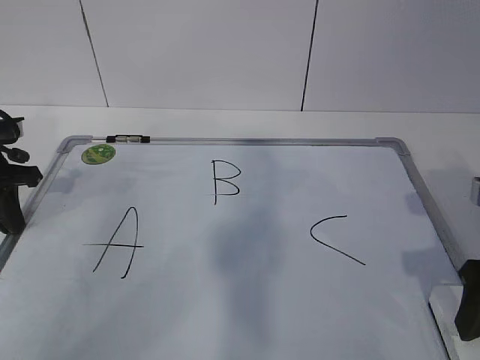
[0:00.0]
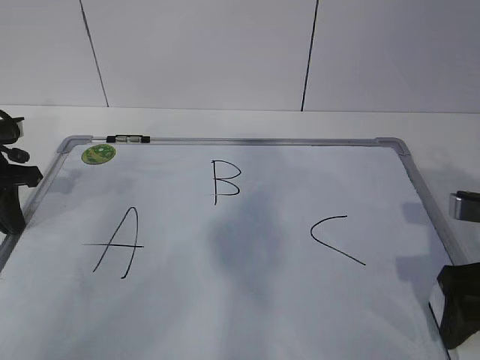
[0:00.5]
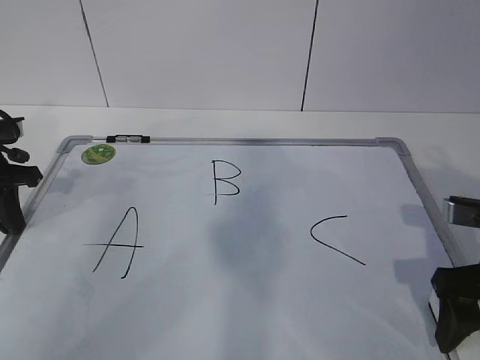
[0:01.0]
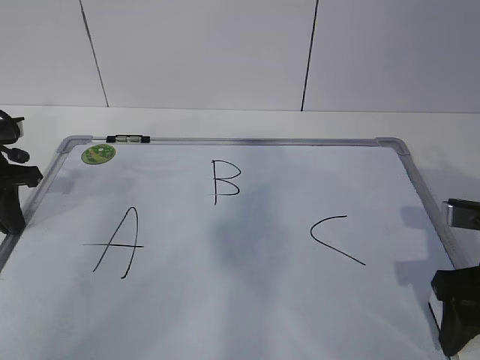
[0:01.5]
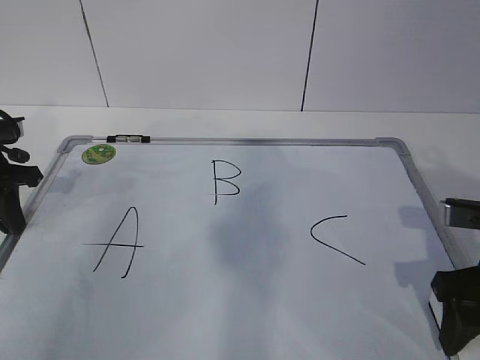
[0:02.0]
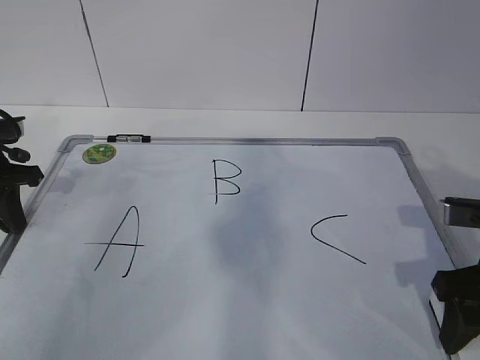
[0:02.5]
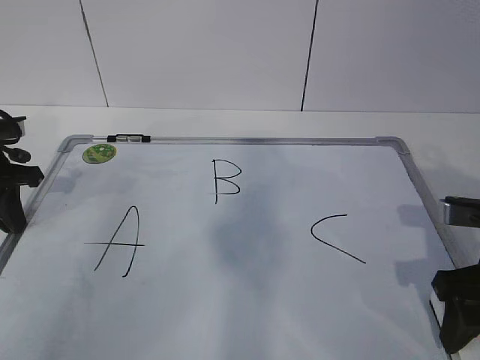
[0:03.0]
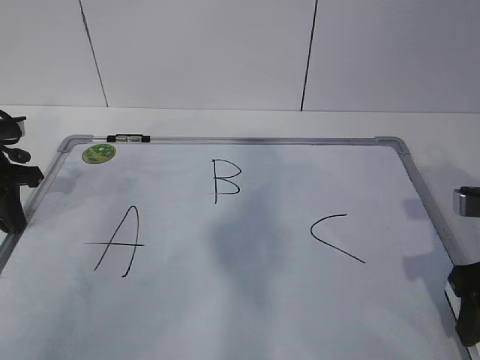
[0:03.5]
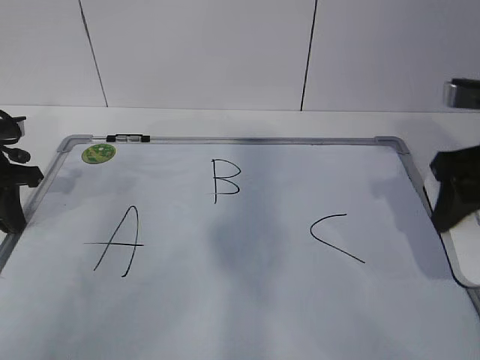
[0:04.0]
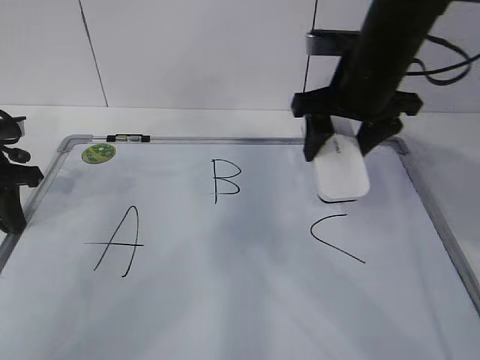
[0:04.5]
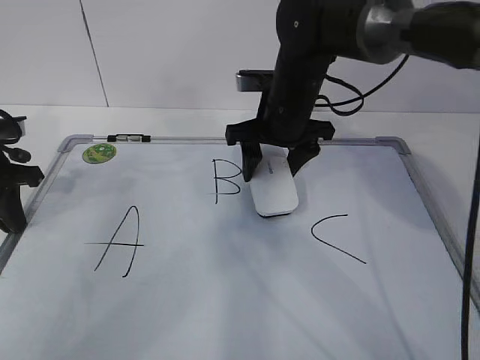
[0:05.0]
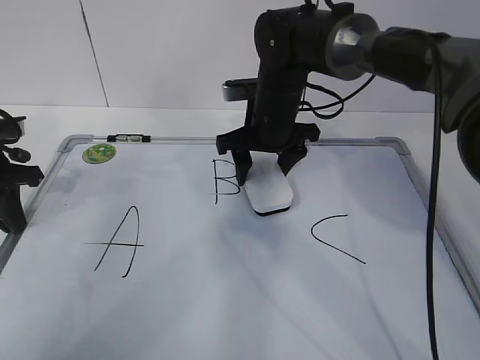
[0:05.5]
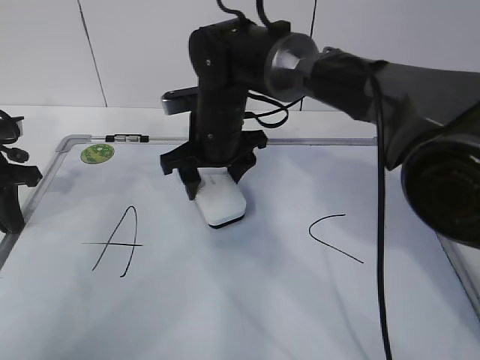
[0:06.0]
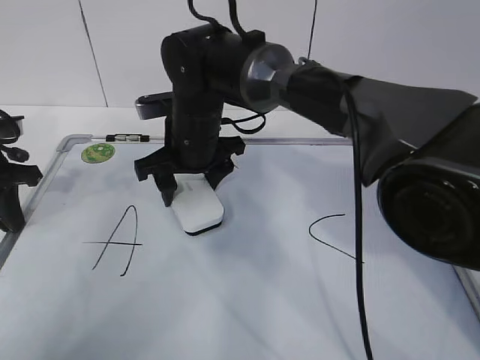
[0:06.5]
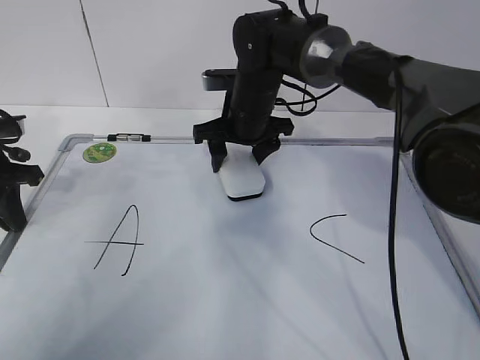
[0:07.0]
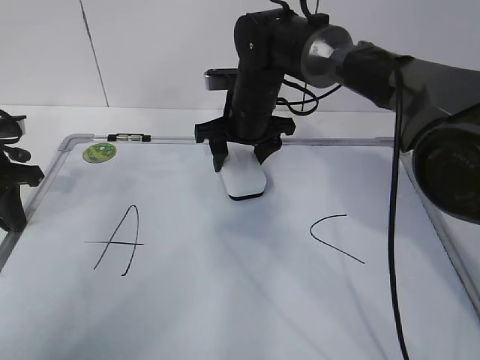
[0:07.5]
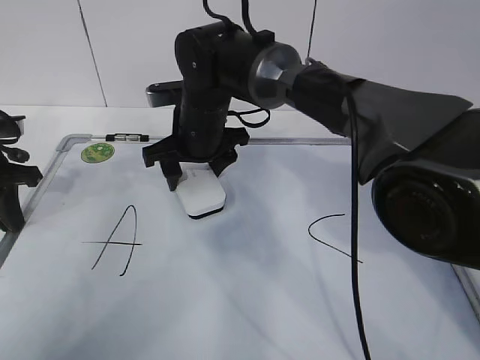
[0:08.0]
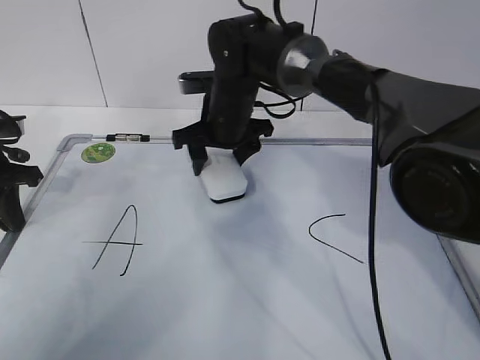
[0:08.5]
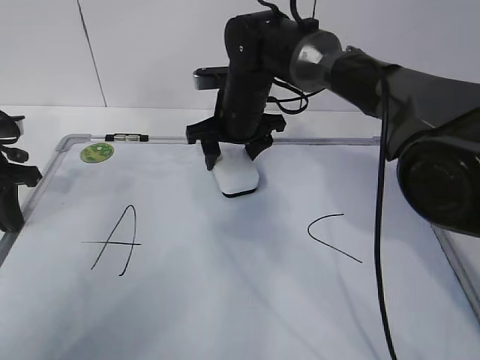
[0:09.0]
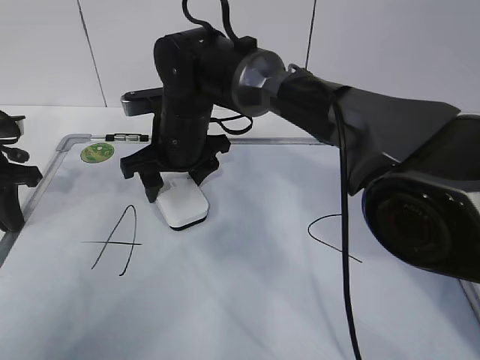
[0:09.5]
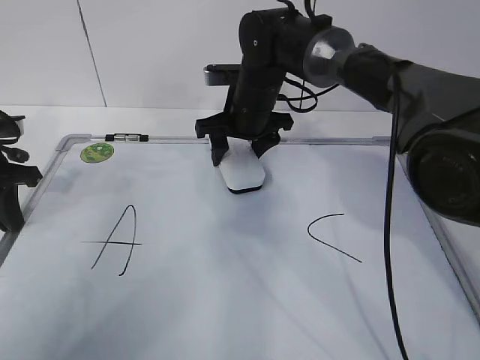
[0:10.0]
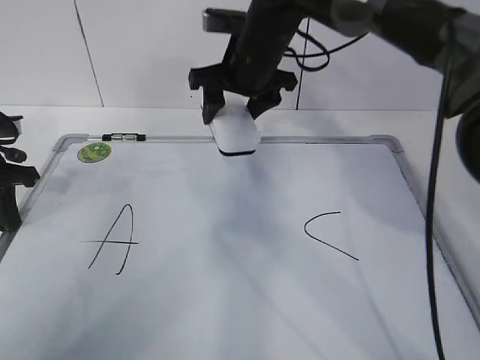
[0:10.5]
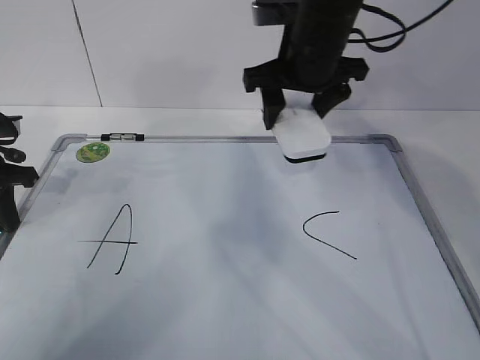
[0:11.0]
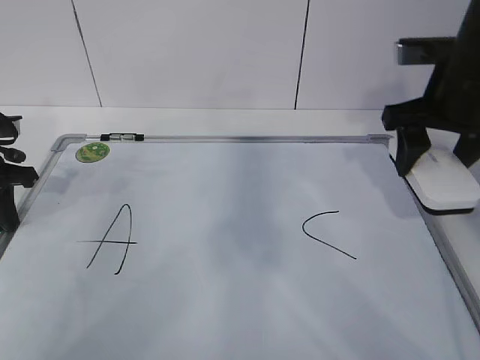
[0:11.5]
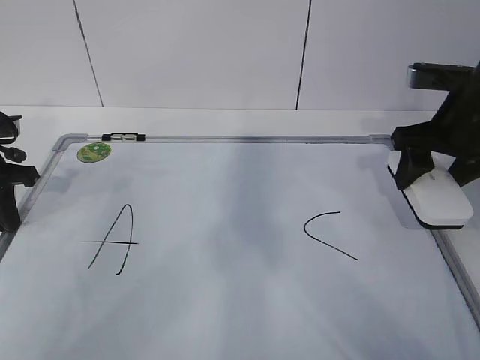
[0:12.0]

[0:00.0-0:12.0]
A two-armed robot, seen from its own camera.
Task of the whole recording: pick up the eraser on the blackboard and erase the letter "B".
Step, 0:00.5 to 0:06.5: Erase the letter B with your right hand.
Step, 0:07.5 to 0:09.5: Grab the eraser with your right hand.
0:00.0 to 0:02.0: The right gripper closes its fingers.
0:02.0 to 0:04.0: The right gripper moves upward, some 10 cm.
0:04.0 to 0:06.0: The right gripper shifts some 30 cm to the left and forward.
0:08.0 to 0:10.0: The right gripper goes left and right, about 10 cm each way, reversing 2 times.
0:10.0 to 0:12.0: The right gripper goes about 25 cm to the right and backward.

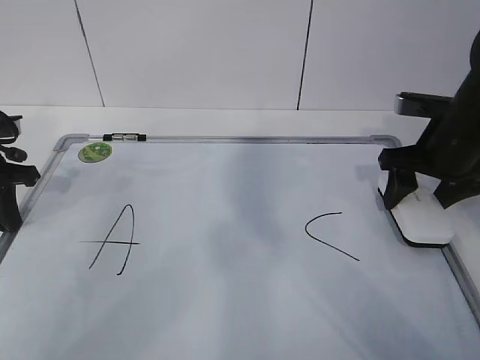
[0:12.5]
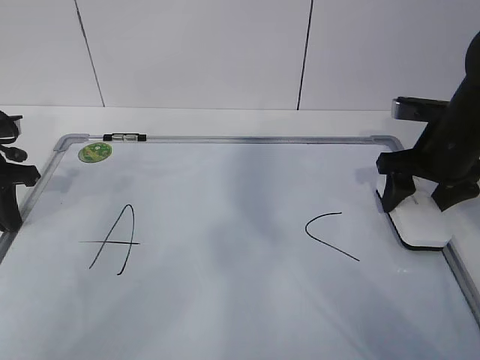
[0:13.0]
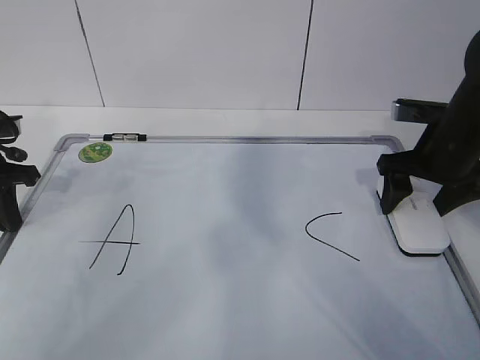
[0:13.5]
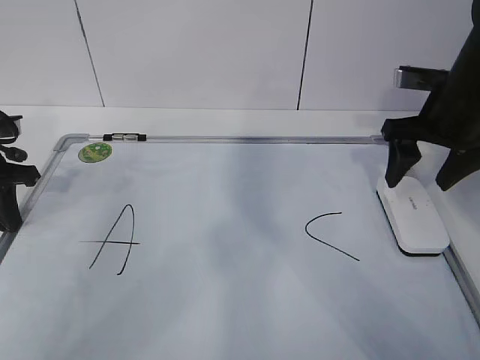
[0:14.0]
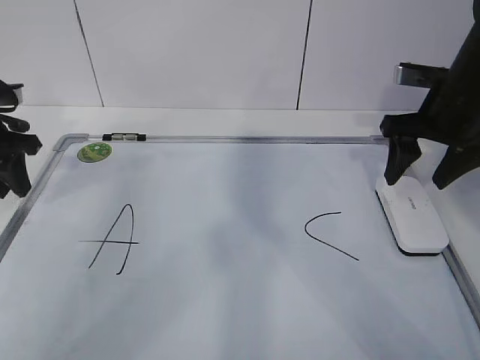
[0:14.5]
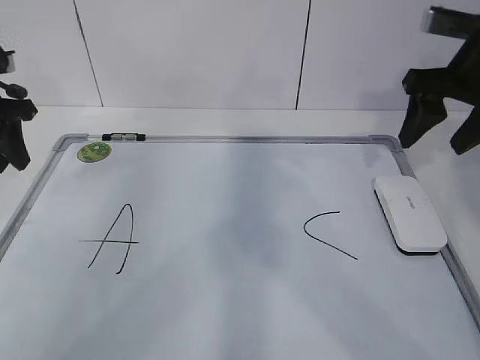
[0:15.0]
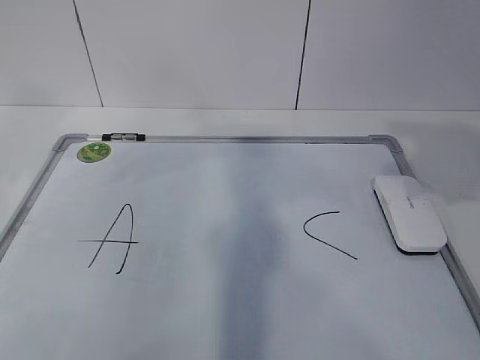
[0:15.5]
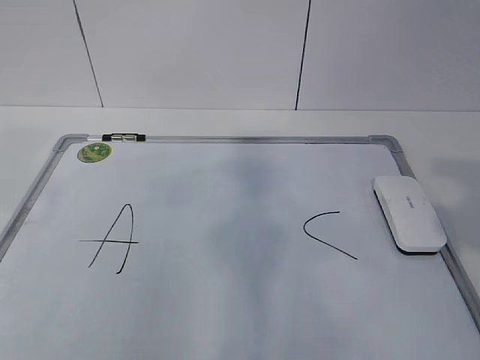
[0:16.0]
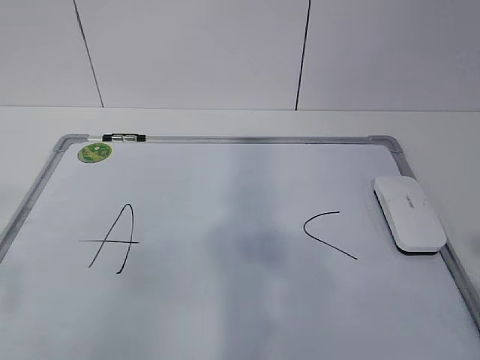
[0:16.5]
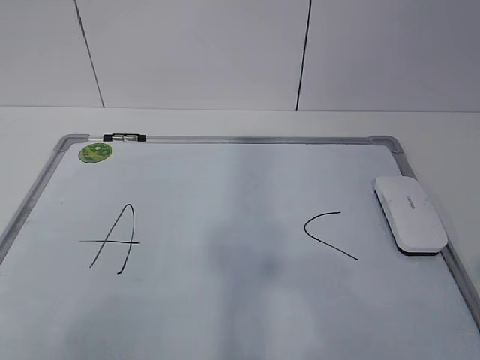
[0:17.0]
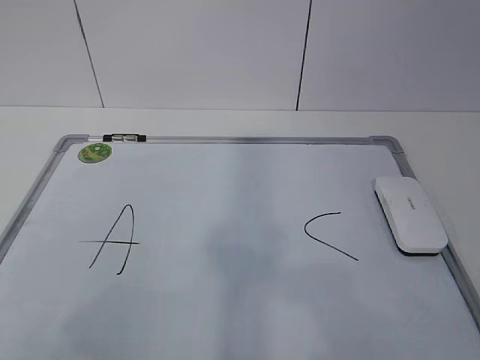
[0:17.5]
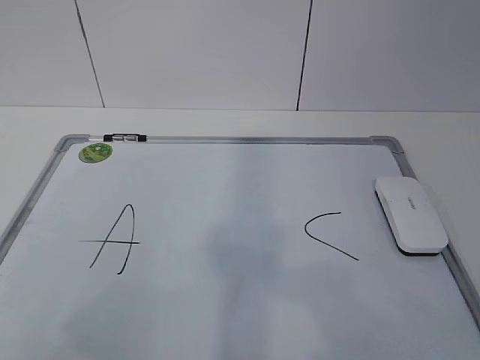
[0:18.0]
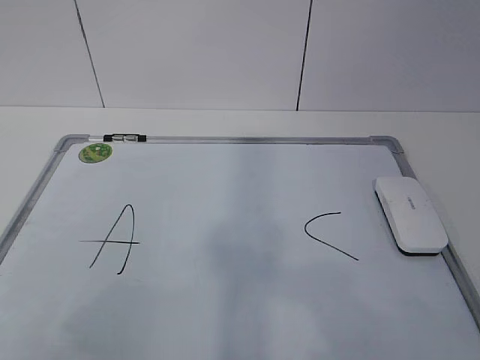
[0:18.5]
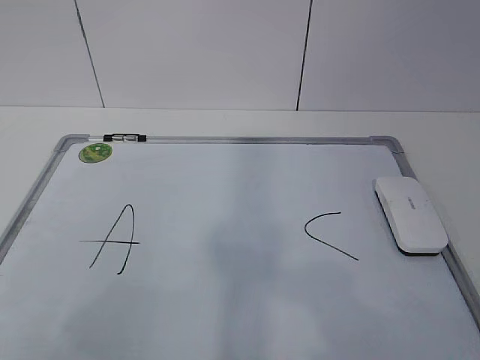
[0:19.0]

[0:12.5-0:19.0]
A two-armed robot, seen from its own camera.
Task of the whole recording: pick up the eraser on the blackboard and erase the letter "B".
0:12.5 to 0:14.5: The right gripper opens, then closes once more; the left gripper opens its fingers.
0:14.5 to 0:17.0: The grippers both shift backward by about 40 cm.

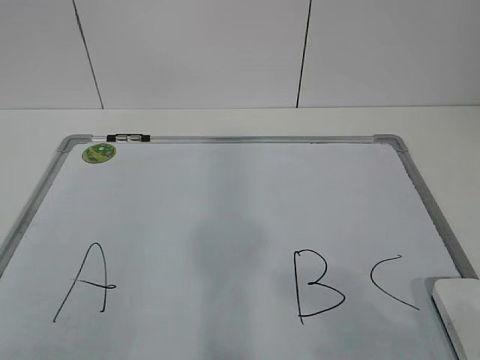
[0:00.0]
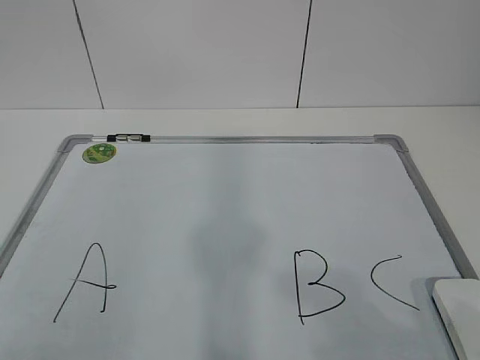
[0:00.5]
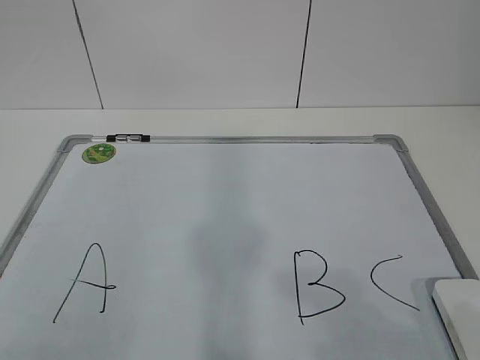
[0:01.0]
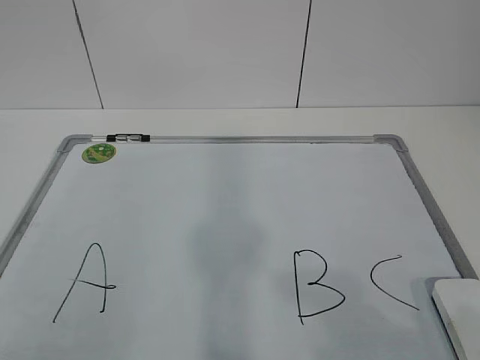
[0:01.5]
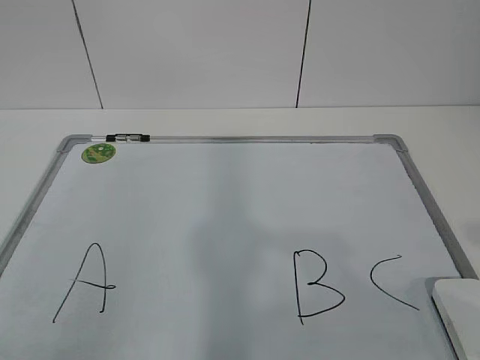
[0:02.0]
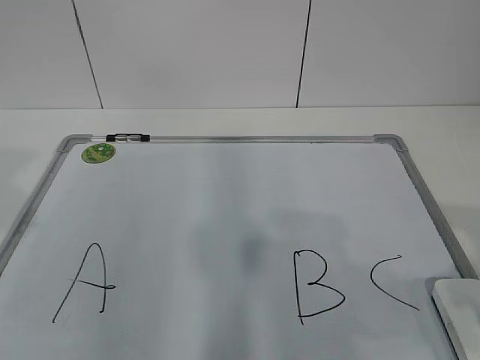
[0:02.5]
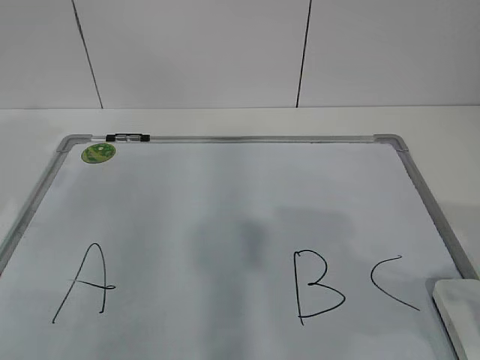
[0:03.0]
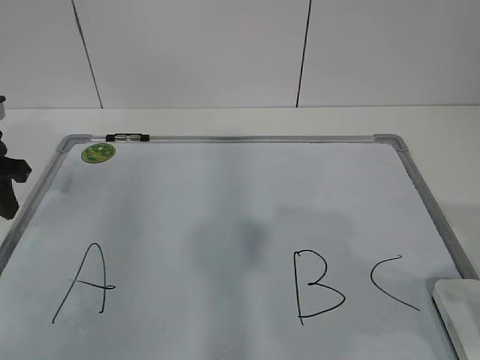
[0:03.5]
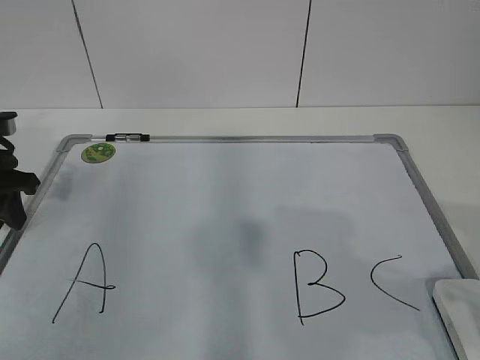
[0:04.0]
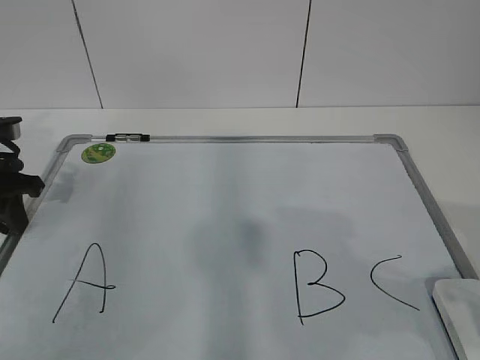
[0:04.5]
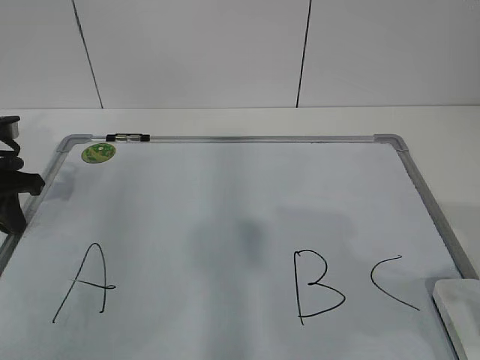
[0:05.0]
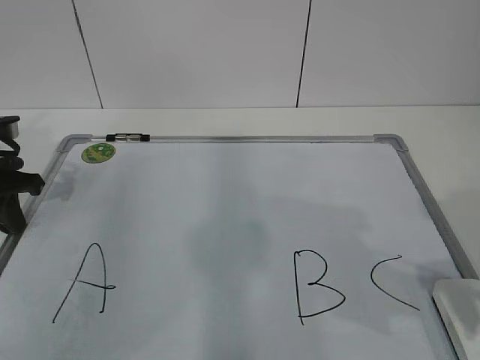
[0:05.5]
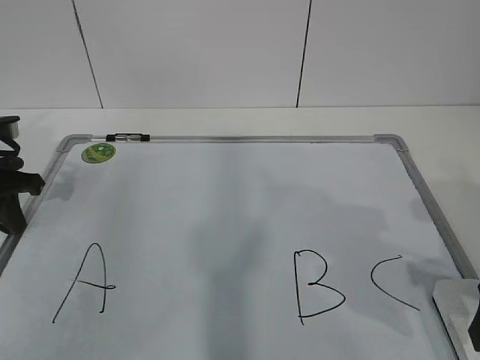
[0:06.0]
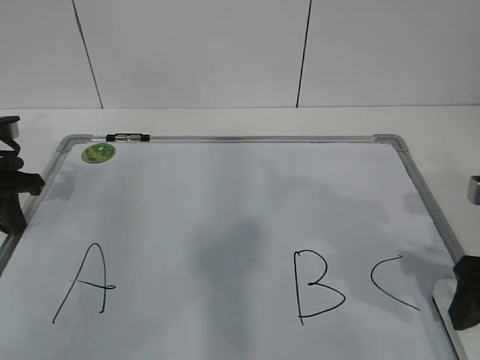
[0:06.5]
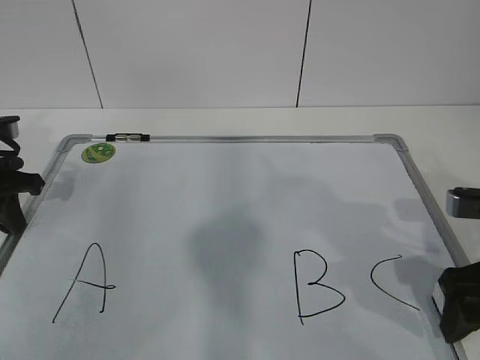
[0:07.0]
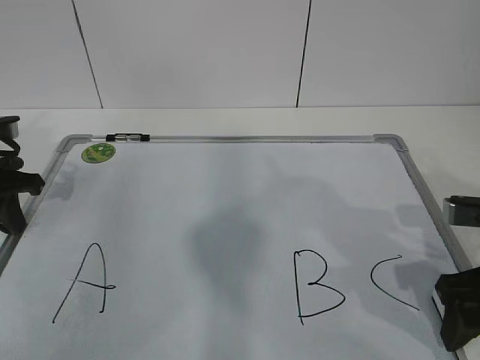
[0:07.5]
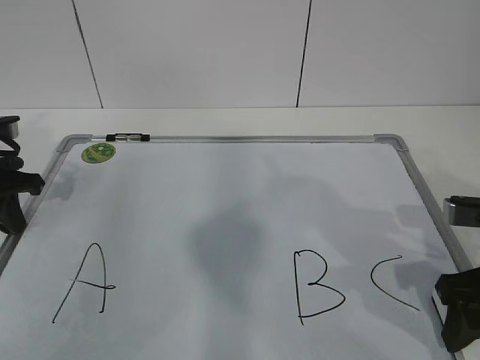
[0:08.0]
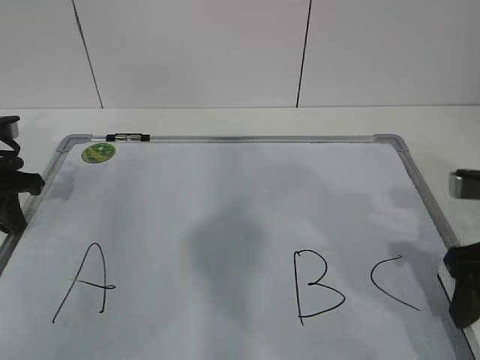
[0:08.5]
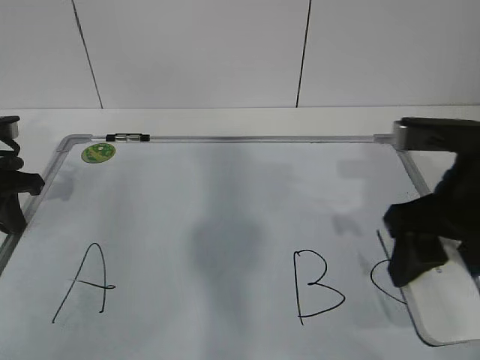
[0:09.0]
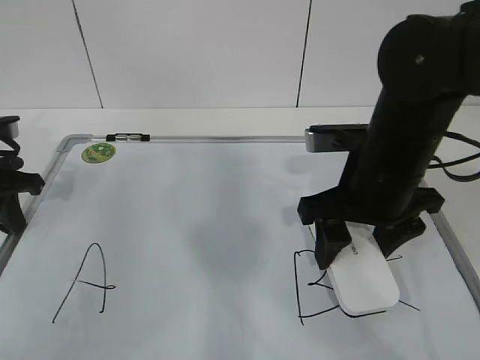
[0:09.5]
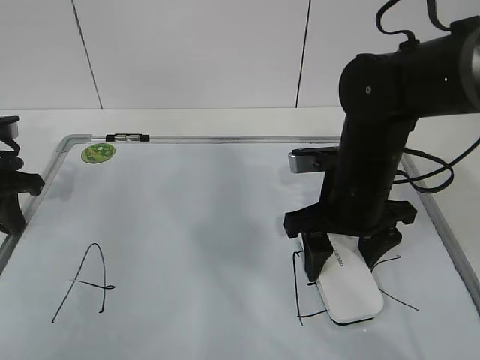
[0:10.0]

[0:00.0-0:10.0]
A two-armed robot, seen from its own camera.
Task of the whole recording: pick up the eraser on the blackboard and erase the letter "B".
Step, 0:00.0 to 0:03.5: Hold the drawing board steady with your left hand.
0:02.0 to 0:04.0: The left gripper travels forward and downward by some 35 cm.
0:06.0 to 0:08.0: The right gripper ends up roughly 5 cm from where it was, and closes.
0:08.0 to 0:10.0: The right gripper shifts approximately 15 cm to the left and forward.
